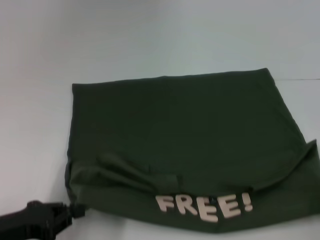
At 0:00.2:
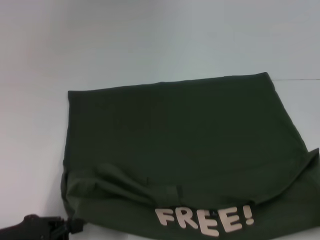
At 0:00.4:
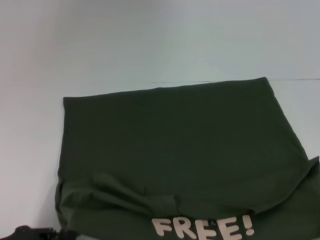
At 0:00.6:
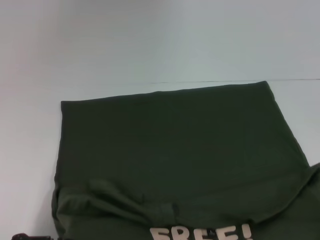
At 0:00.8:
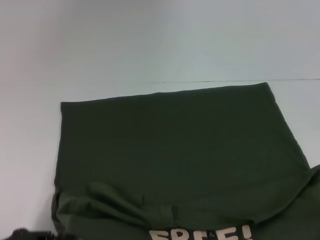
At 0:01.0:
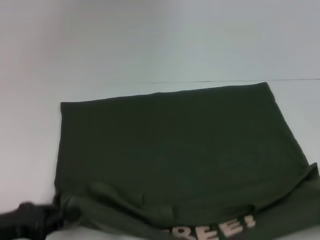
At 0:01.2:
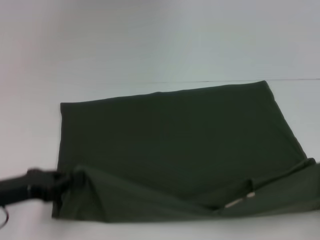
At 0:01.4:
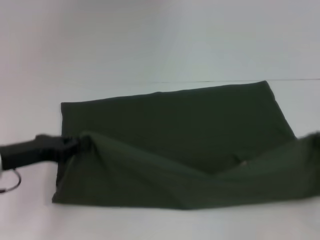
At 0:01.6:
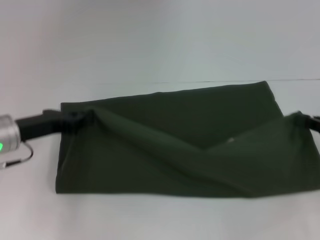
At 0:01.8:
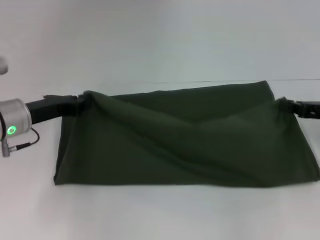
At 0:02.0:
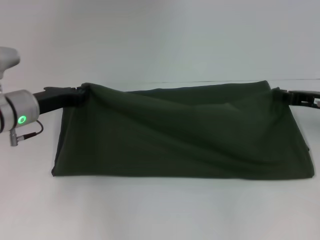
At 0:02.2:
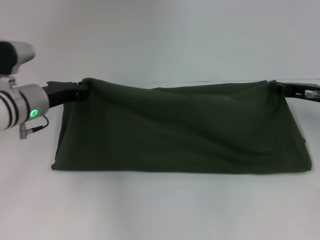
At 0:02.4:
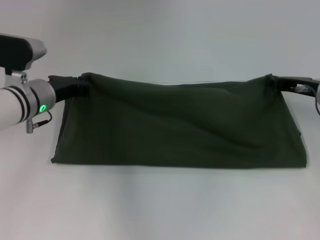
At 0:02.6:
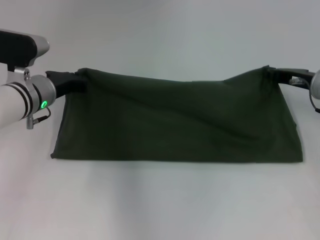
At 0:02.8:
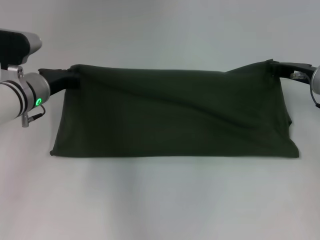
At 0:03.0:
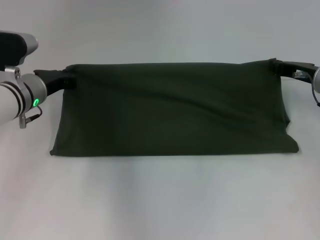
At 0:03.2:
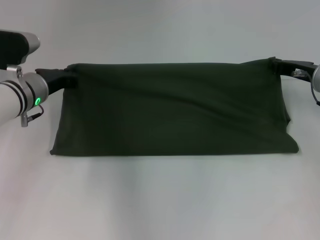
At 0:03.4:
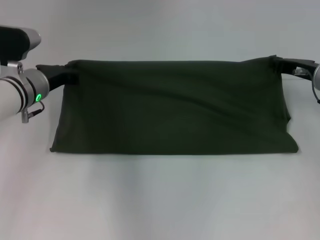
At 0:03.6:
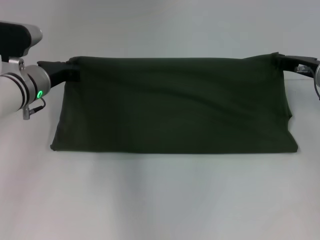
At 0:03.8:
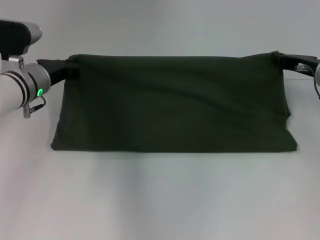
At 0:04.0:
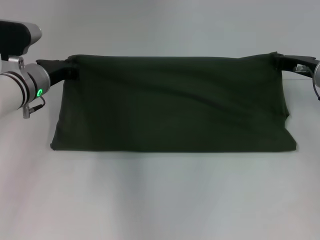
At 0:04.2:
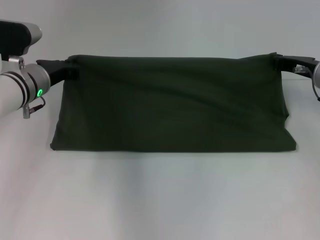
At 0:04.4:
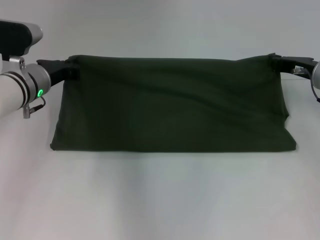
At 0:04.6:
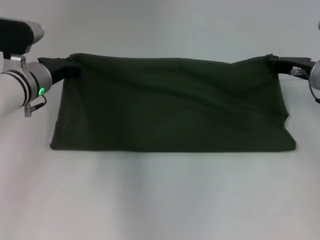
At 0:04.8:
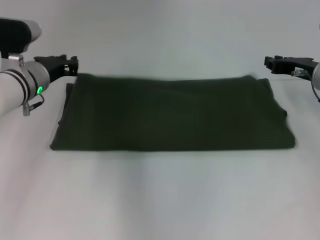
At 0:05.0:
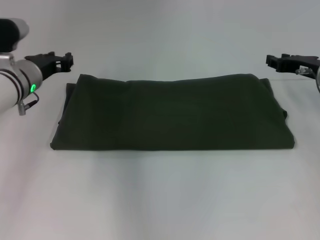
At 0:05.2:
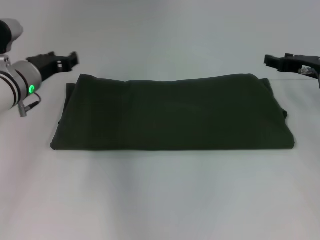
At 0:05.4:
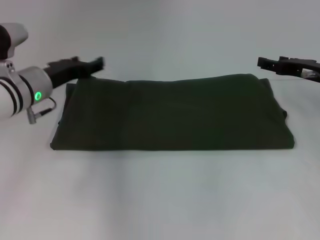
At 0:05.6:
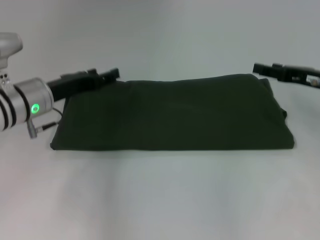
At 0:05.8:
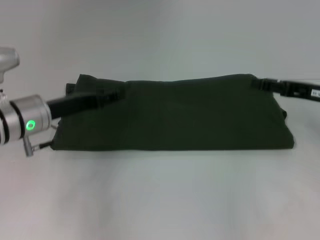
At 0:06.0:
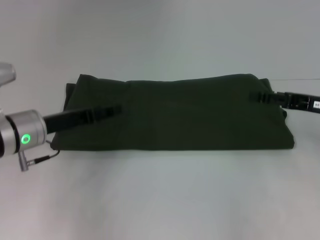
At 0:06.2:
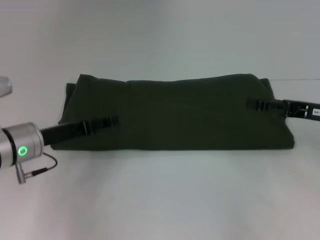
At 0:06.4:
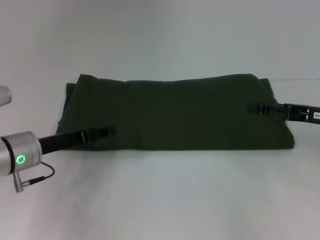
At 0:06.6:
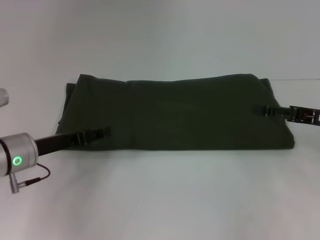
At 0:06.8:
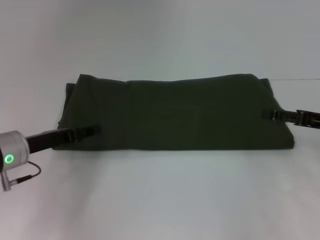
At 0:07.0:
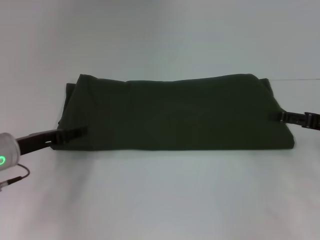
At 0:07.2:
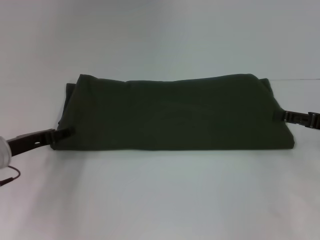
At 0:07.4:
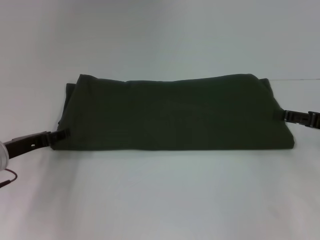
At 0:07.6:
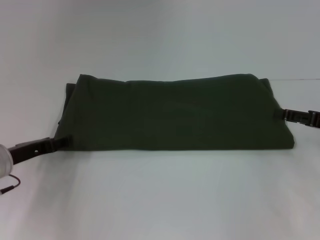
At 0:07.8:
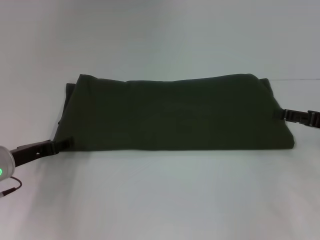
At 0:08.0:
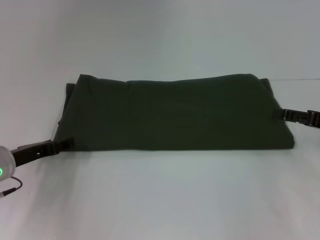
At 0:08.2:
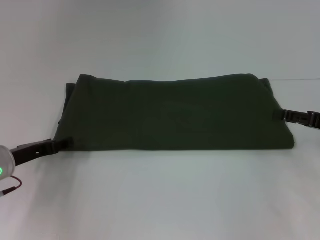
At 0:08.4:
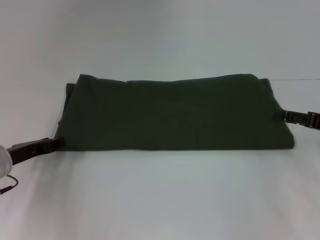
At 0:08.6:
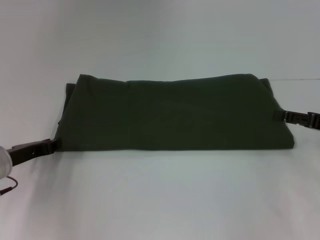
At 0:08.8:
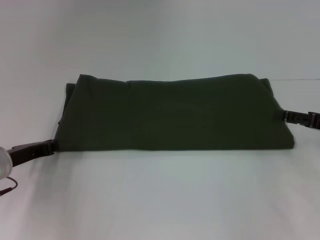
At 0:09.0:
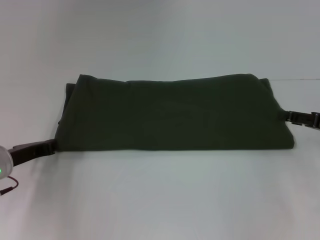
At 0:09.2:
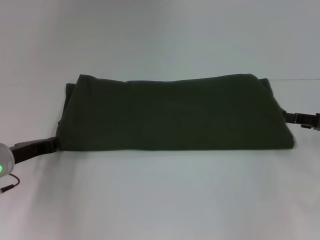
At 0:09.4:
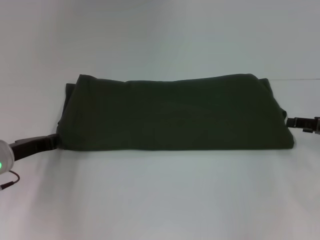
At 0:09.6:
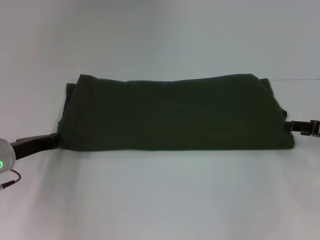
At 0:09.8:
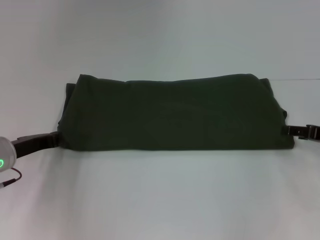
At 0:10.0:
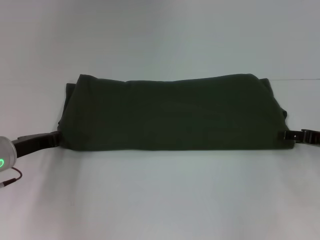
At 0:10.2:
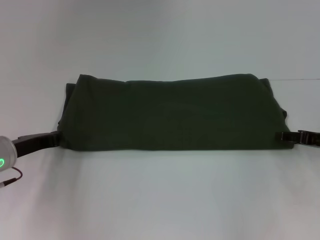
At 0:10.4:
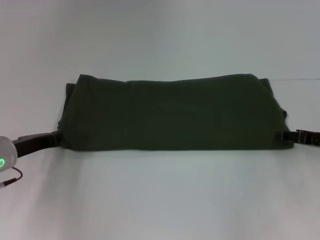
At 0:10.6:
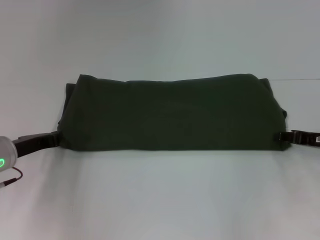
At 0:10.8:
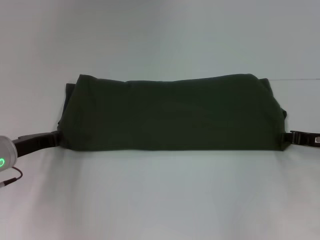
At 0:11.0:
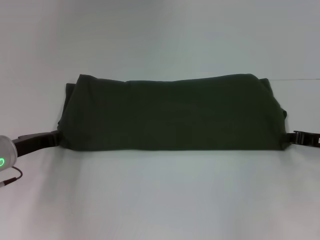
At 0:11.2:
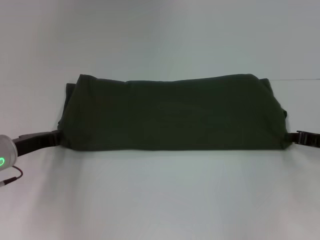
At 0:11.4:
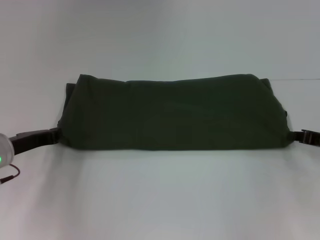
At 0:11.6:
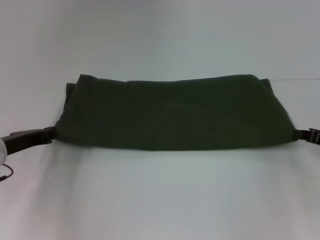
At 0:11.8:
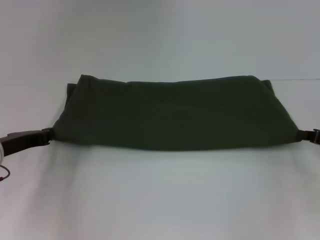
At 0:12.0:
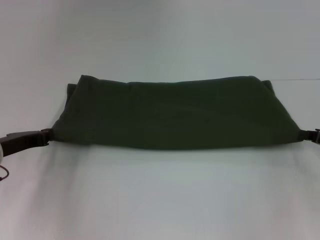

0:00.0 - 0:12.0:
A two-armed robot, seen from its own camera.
Step, 0:00.8 - 0:04.8: Fold the clothes with your right hand.
0:00.0 - 0:01.6: The grippers both shift forward by roughly 15 cm.
0:01.6 - 0:03.0: The right gripper moves forward and to the left, some 15 cm. The left gripper is displaced forward by about 10 cm.
0:03.0 - 0:04.4: There are only small adjustments of the grippers.
0:04.4 - 0:06.0: Both grippers travel together backward, some 10 cm. The left gripper opens. Meanwhile the right gripper opens its fingers.
0:06.0 - 0:07.6: The left gripper goes about 5 cm to the left.
0:07.6 - 0:09.0: The left gripper closes up.
0:09.0 - 0:10.4: The grippers stay close to where they were, moving slightly.
0:10.4 - 0:12.0: The right gripper closes its fingers.

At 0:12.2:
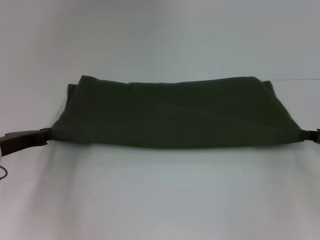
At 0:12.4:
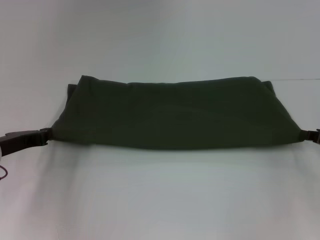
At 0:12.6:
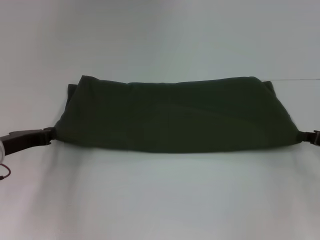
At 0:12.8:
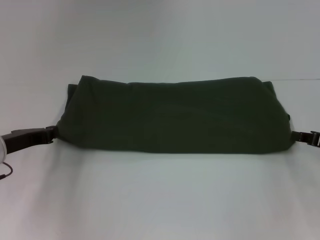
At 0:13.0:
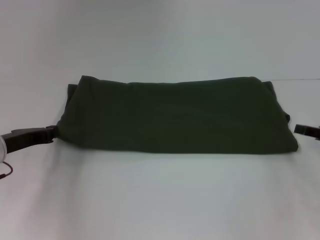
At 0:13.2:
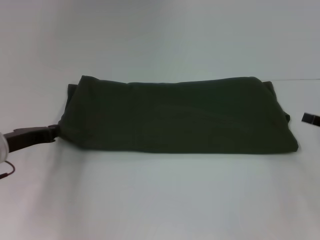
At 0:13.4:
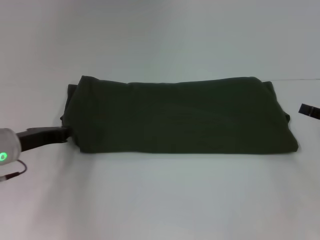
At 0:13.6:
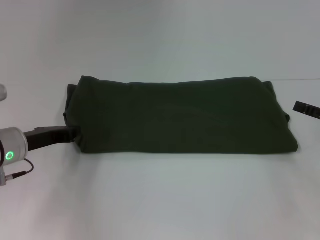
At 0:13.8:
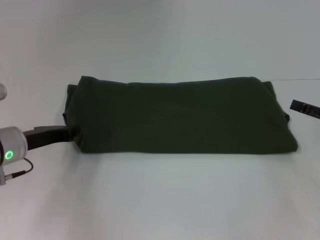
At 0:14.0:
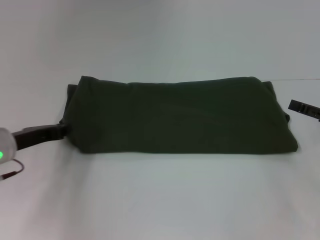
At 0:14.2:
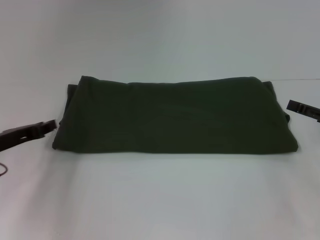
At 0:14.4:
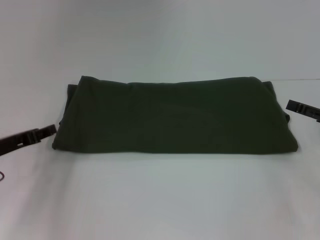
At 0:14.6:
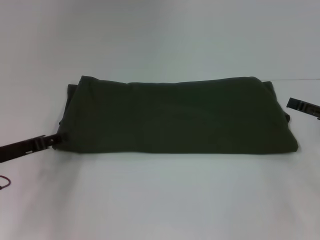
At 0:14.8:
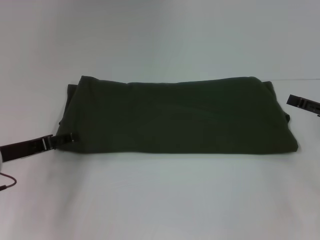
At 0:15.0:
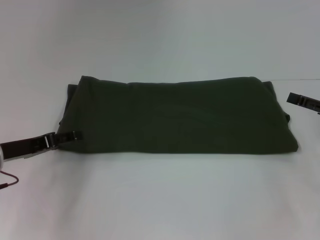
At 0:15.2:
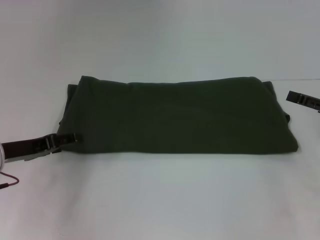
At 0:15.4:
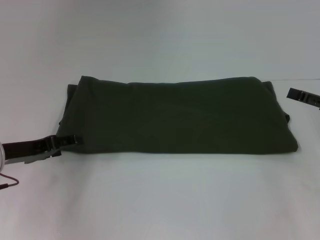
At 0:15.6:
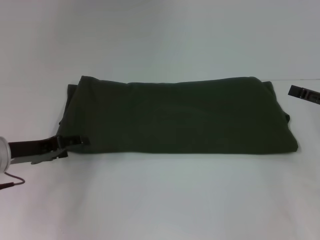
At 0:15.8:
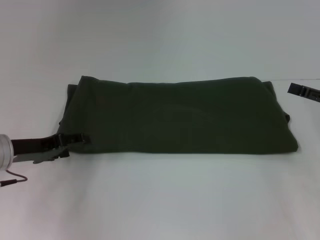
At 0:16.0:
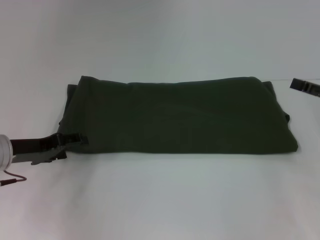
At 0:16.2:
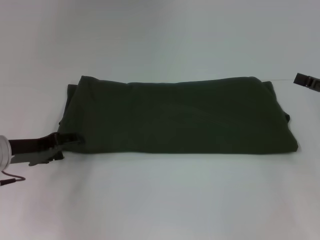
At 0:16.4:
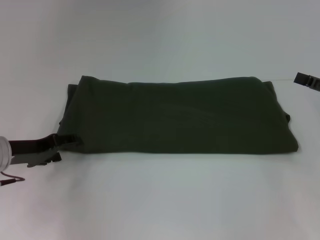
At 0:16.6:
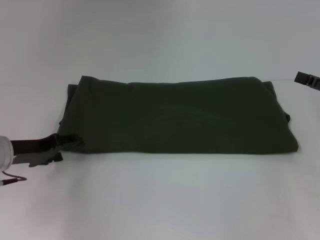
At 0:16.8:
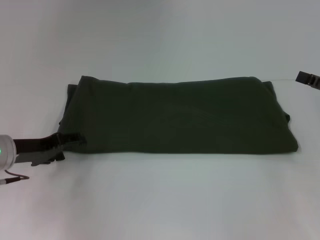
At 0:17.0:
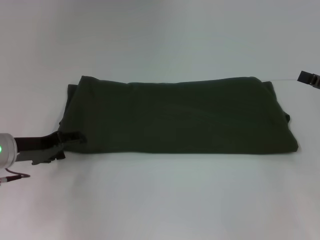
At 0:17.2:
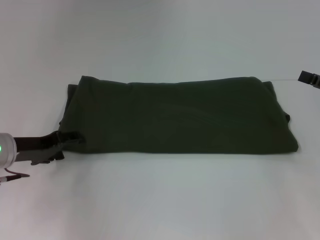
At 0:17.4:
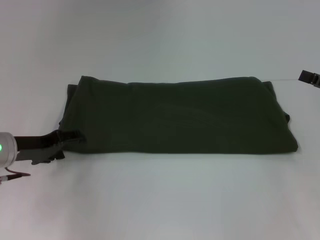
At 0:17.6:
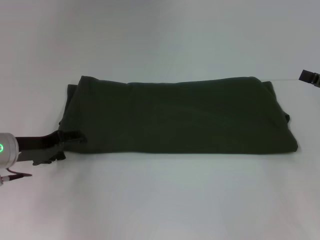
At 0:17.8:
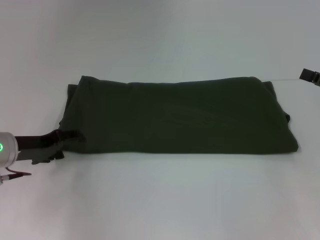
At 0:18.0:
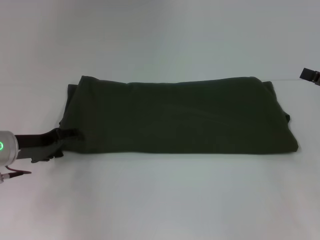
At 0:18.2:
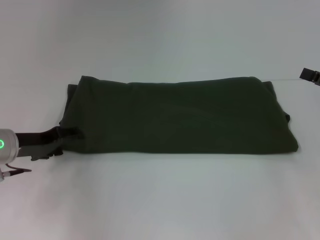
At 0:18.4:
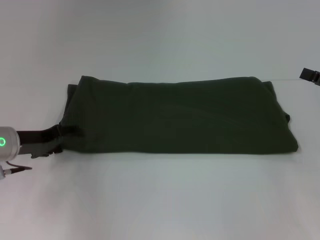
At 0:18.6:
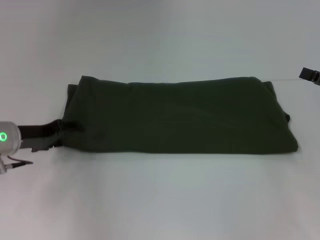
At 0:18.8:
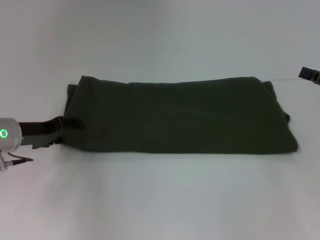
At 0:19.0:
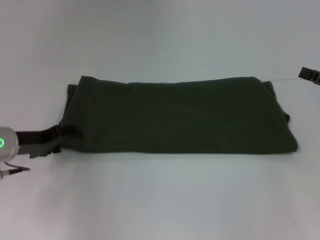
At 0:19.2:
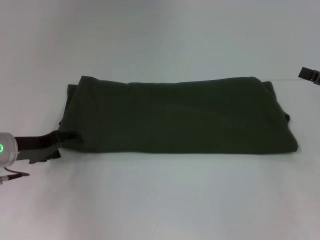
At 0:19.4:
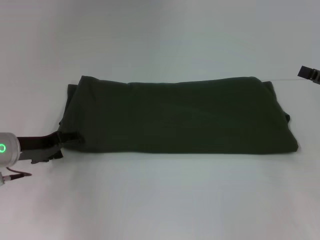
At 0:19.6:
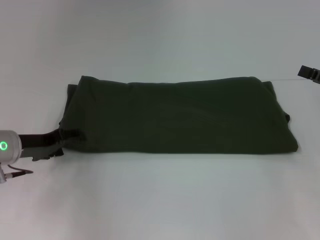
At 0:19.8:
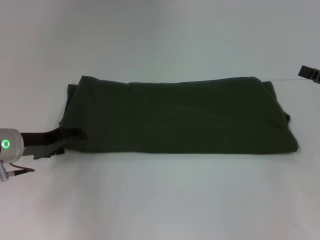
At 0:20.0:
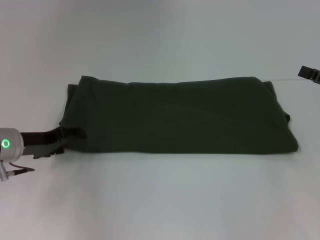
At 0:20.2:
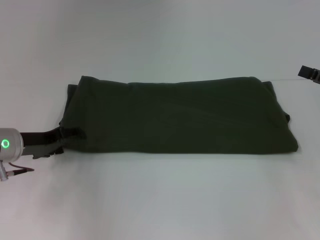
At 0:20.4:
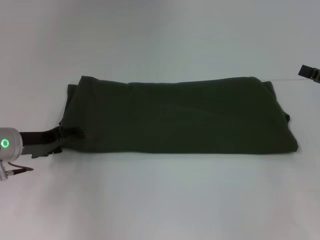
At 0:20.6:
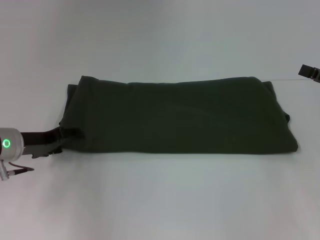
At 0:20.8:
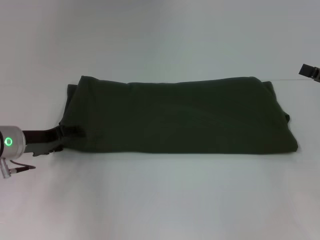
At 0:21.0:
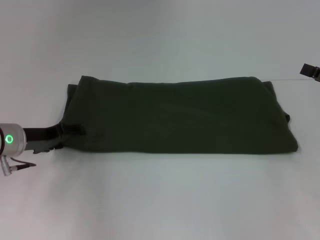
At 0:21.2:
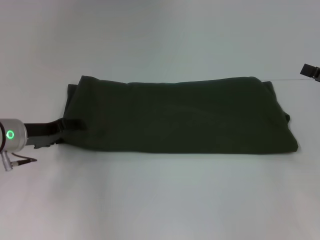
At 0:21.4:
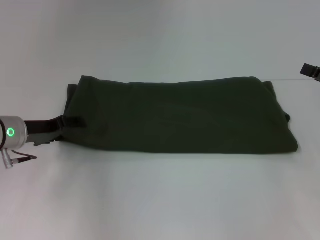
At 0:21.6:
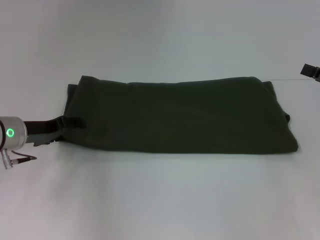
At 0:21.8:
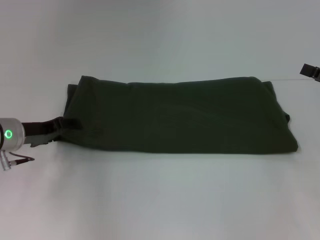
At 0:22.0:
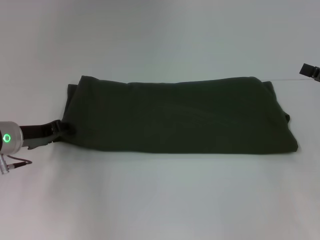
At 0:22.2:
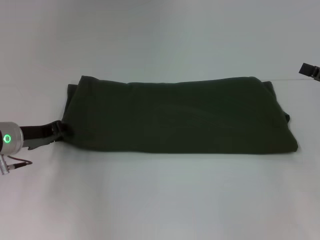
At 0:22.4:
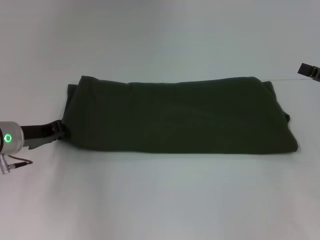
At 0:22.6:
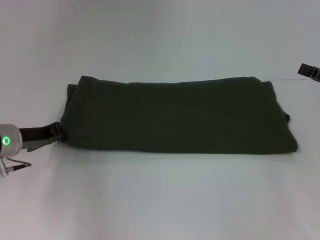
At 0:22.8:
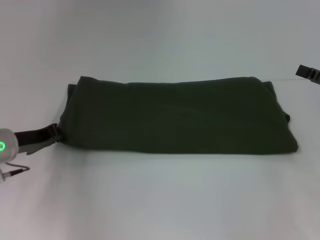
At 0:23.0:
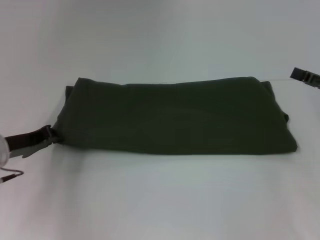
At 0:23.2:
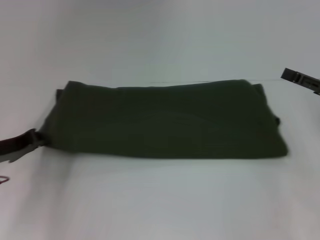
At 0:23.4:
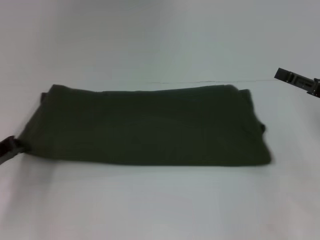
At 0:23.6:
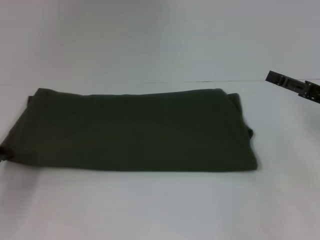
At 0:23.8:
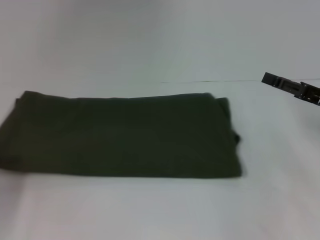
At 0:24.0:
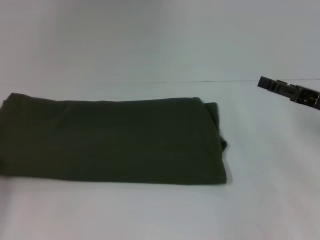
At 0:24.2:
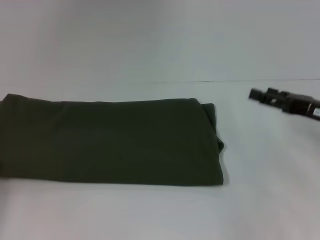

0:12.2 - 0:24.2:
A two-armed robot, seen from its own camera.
0:12.2 - 0:13.8: The right gripper opens its fingers.
0:13.8 - 0:15.2: The left gripper opens its fingers.
0:15.2 - 0:16.6: The grippers make only small movements.
0:16.6 - 0:18.2: Both grippers stay put.
0:18.2 - 0:21.2: The grippers stay close to where they were, moving slightly.
0:21.2 - 0:22.6: The left gripper closes its fingers.
0:22.6 - 0:24.2: The right gripper travels to the left by approximately 5 cm. The left gripper moves to the left and backward, roughly 15 cm.
